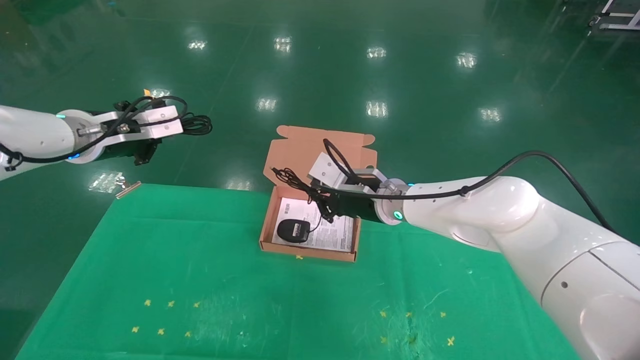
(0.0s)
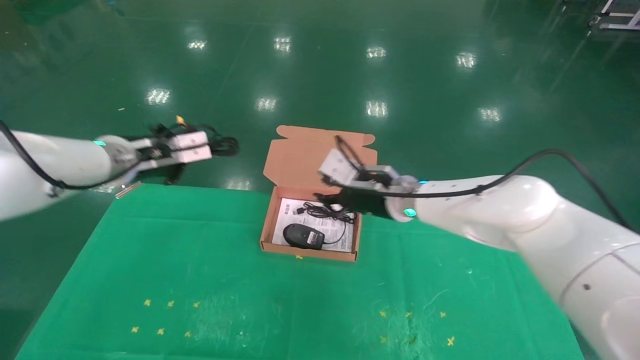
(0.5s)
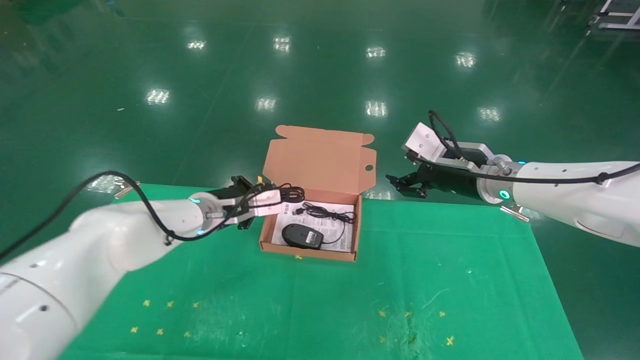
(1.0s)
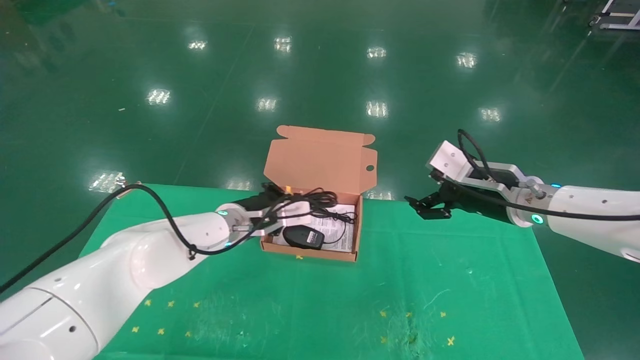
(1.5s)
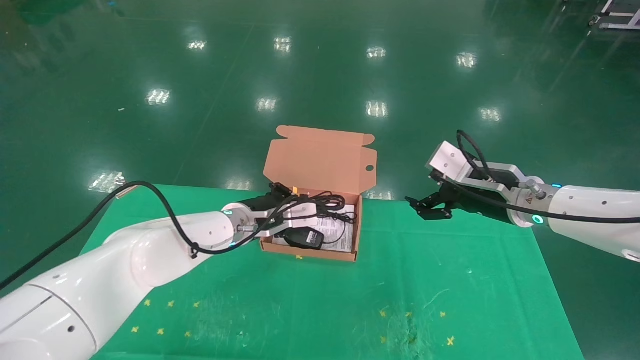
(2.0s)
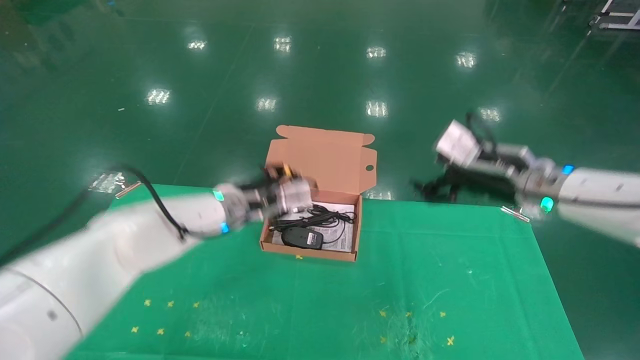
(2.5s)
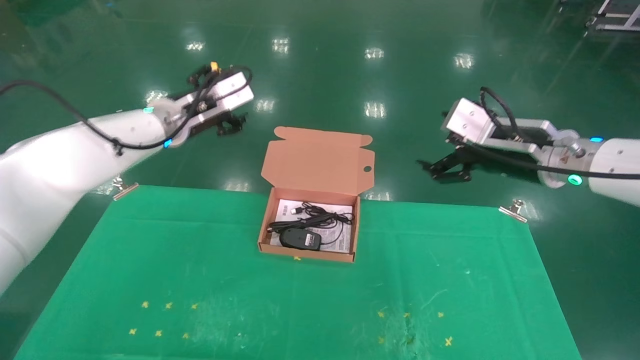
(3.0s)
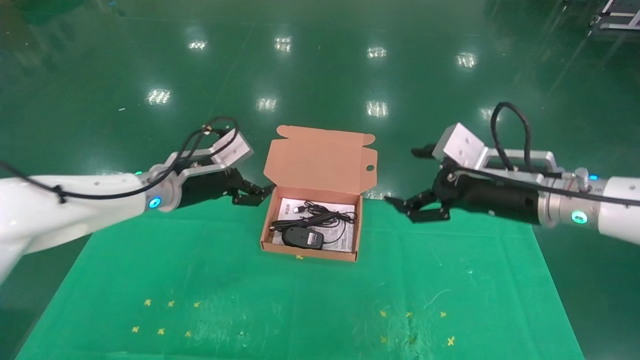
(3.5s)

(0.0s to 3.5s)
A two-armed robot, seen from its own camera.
Task of the whole recording: grasp data cable left put into box grasp mouse right put into box.
Step, 0.0s - 2.0s: Place the mouse and power cord into the box.
0.0s - 2.0s: The left gripper goes approximately 25 cm to the right and downward. The right gripper travels to the right by about 20 cm, and opens.
2.0s - 3.5s: The right gripper is displaced backward by approximately 5 cm. Meanwhile the left gripper moves to the left and upward, some 10 cm, and opens up.

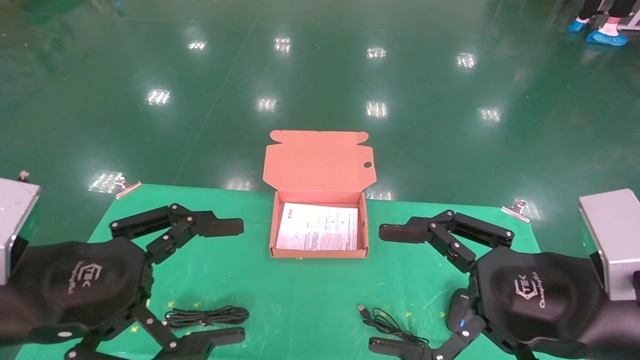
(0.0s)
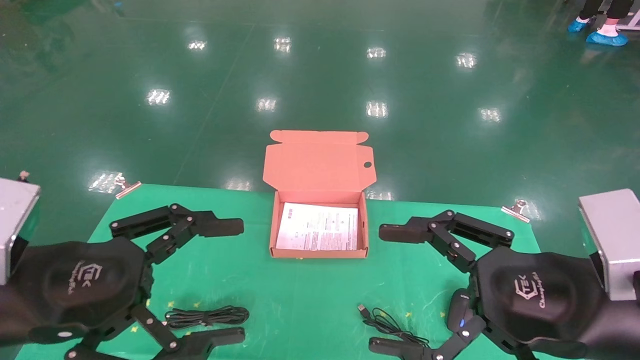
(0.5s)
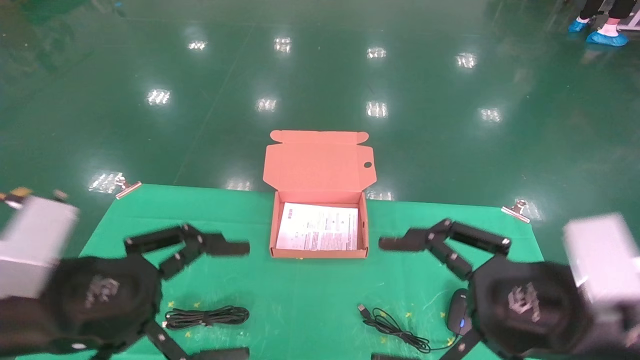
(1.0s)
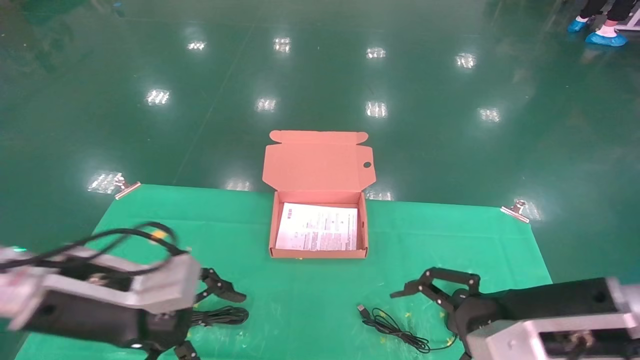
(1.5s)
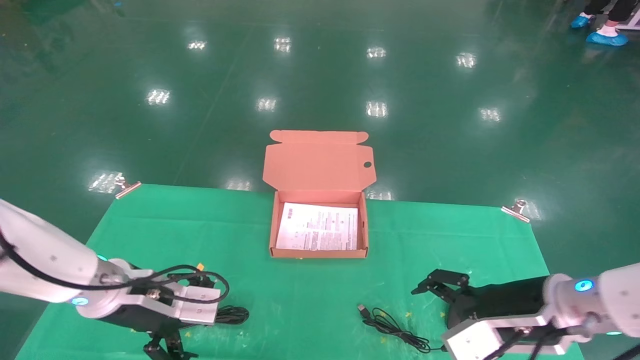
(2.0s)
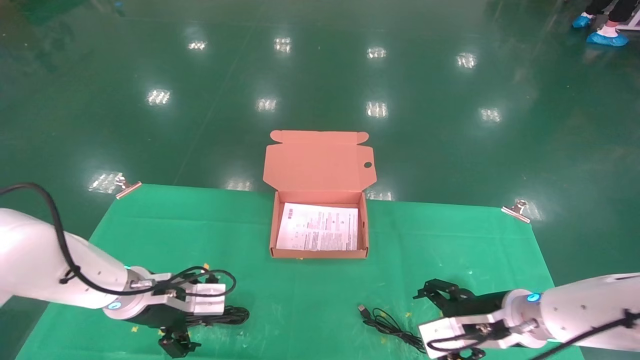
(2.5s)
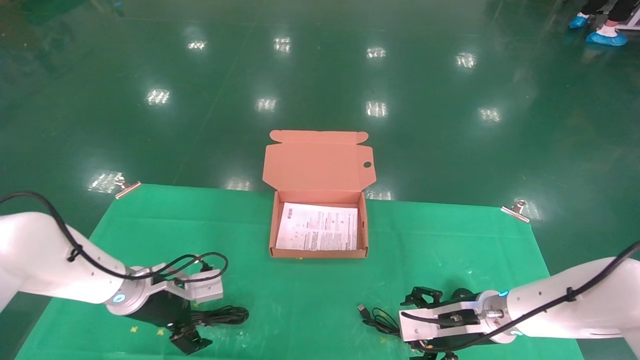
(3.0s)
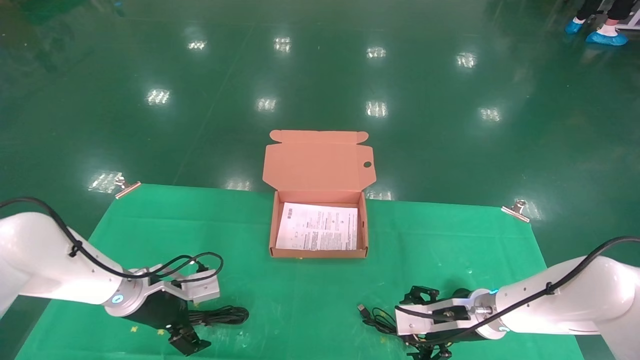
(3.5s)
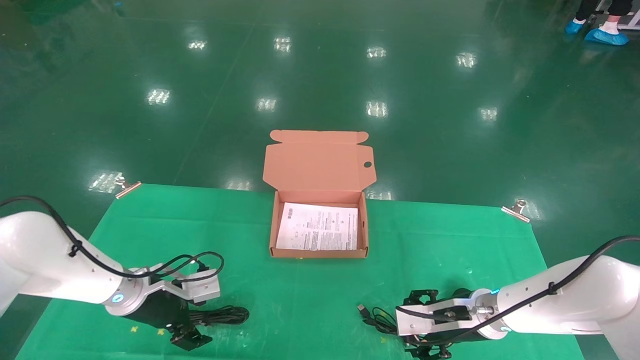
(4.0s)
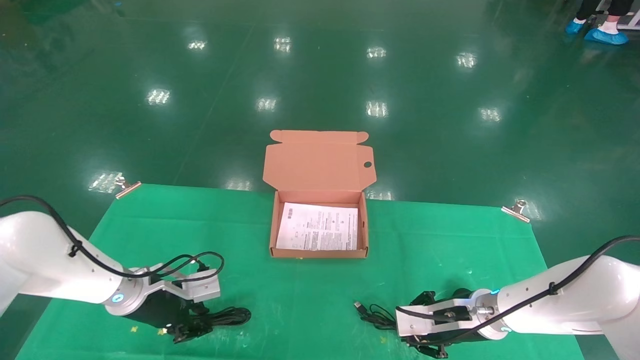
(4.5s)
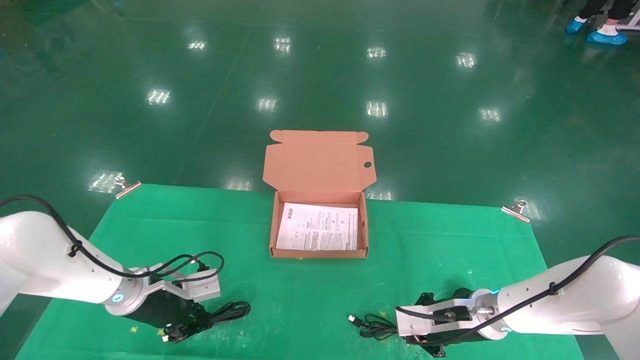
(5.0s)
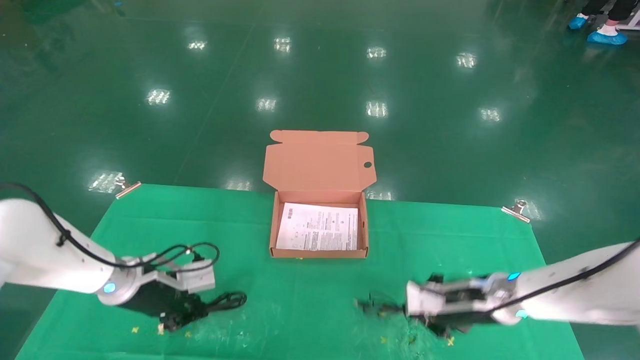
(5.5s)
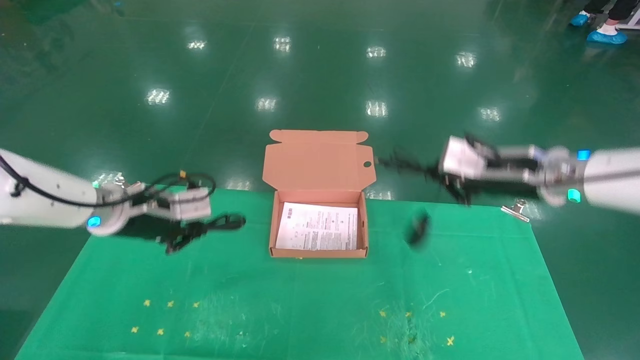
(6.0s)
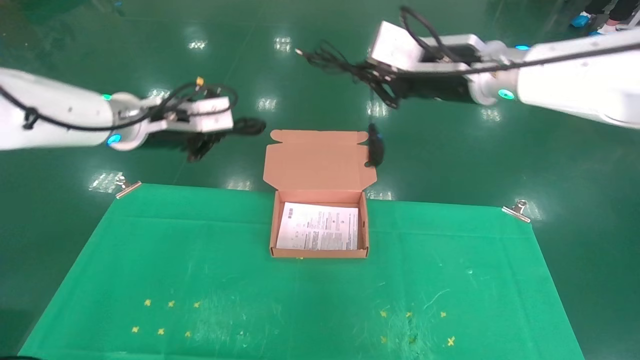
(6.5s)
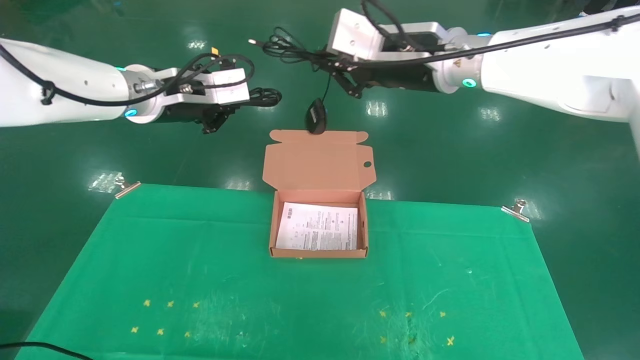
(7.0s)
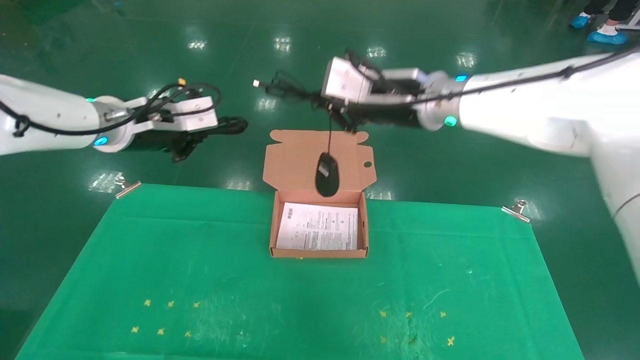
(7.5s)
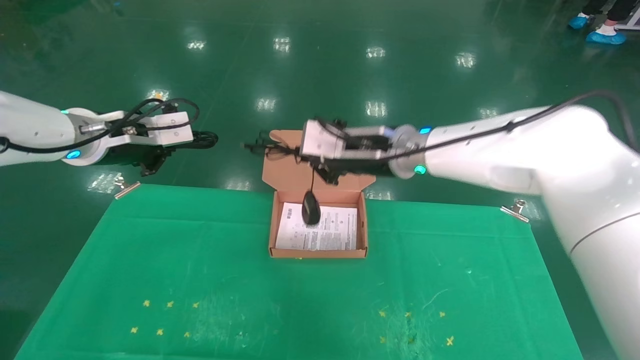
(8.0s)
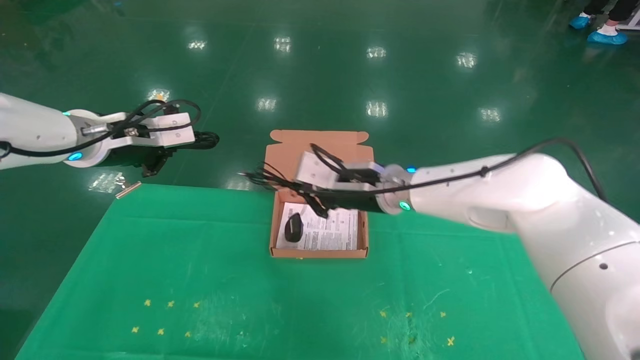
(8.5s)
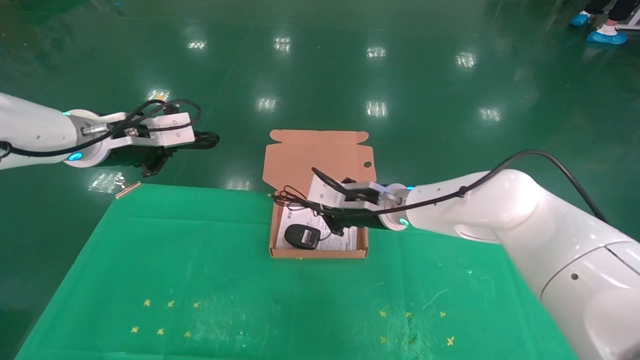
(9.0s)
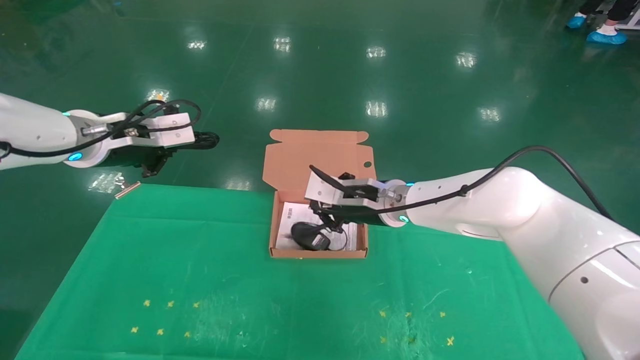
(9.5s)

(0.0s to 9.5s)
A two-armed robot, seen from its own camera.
Task of the whole recording: grasp data cable left put into box grasp mouse right put into box.
Step, 1.5s - 5.5s: Grab and pick up both the mouse and power cord from the accessory packaging area at the same time.
0.0s - 2.0s: The grippers both shift forward and downward by roughly 15 cm.
2.0s - 4.0s: The grippers both shift forward and downward by some 15 cm.
4.0s - 5.5s: The right gripper travels upward by about 5 cm, and closes its fingers. Meanwhile the left gripper closes.
5.5s - 7.5s: The left gripper travels upward by roughly 20 cm; the right gripper shifts some 30 cm upward and to the left.
7.5s - 9.5s: The right gripper shifts about 15 cm downward.

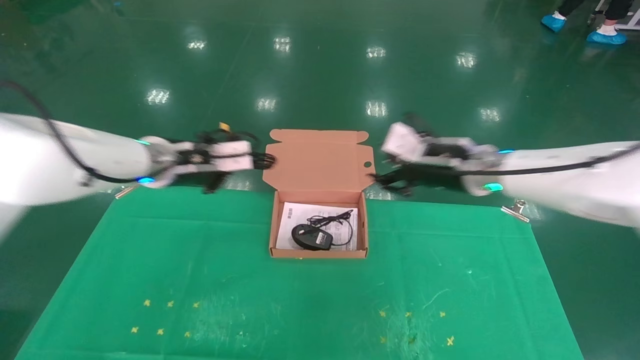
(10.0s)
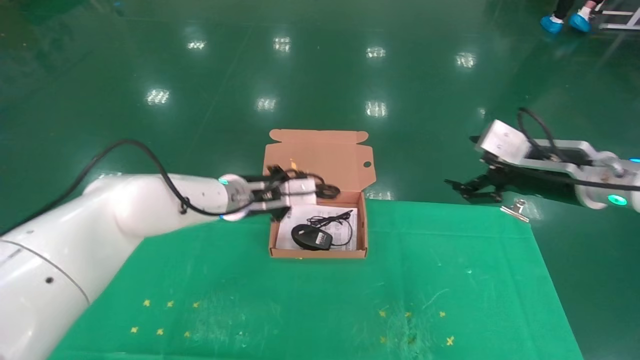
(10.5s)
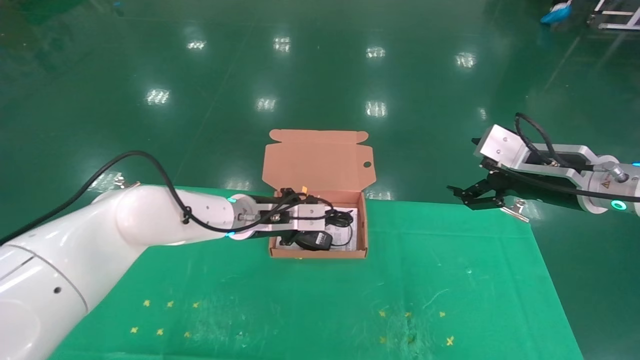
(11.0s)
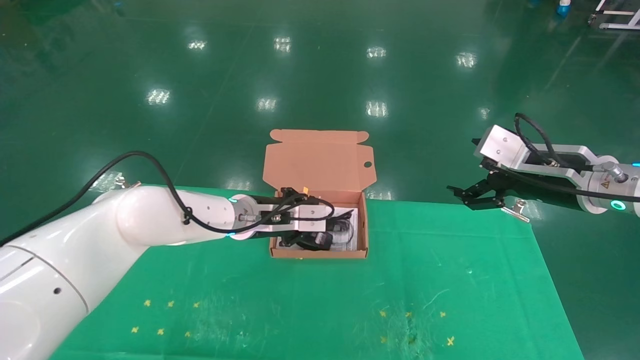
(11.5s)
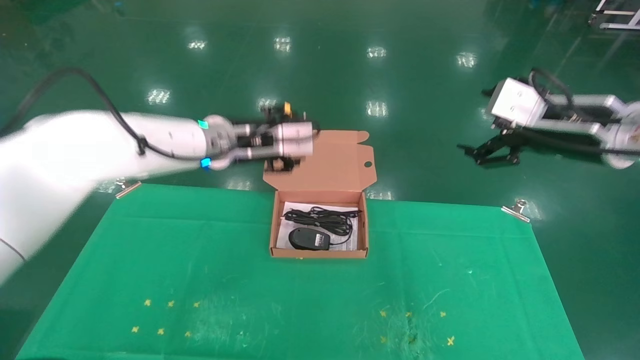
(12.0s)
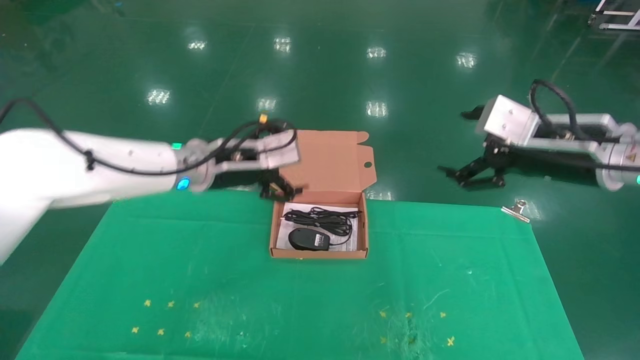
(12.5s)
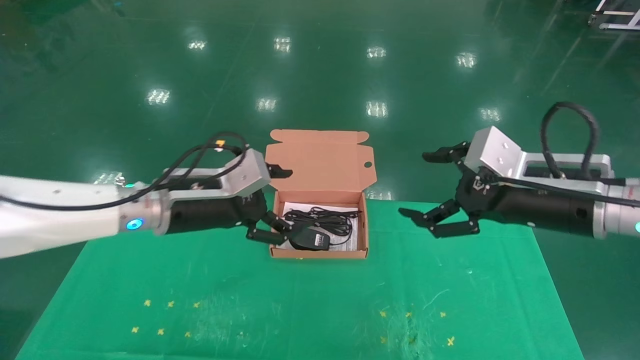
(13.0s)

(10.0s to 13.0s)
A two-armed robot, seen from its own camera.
Task of the whole recording: grasp data cable left put into box grasp mouse right put into box.
Step, 10.0s - 12.0s: Place the mouse and power cord into the box.
10.0s - 11.5s: The right gripper is displaced to the right and backward by roughly 10 cm, and opens; the left gripper goes roughly 10 cm downward and to the right.
11.5s - 13.0s: The right gripper goes some 10 cm backward and to the left. The left gripper moves backward, to the left and upward, some 15 cm, and opens.

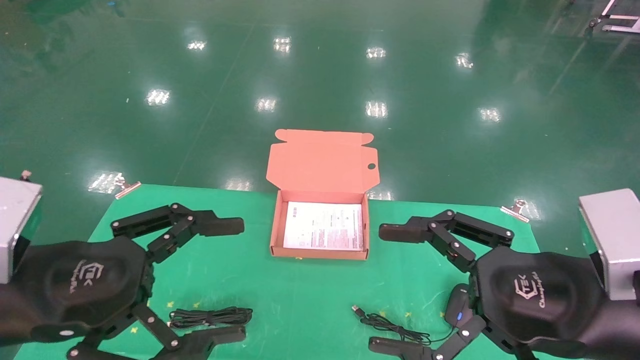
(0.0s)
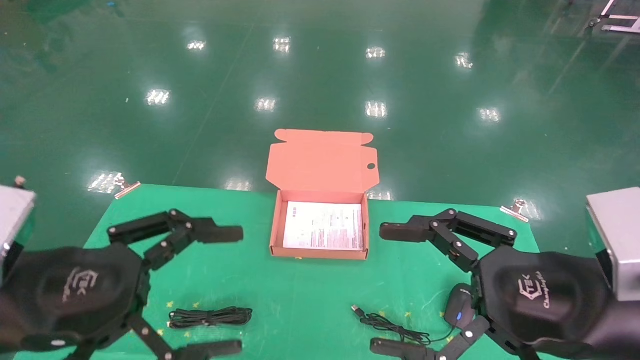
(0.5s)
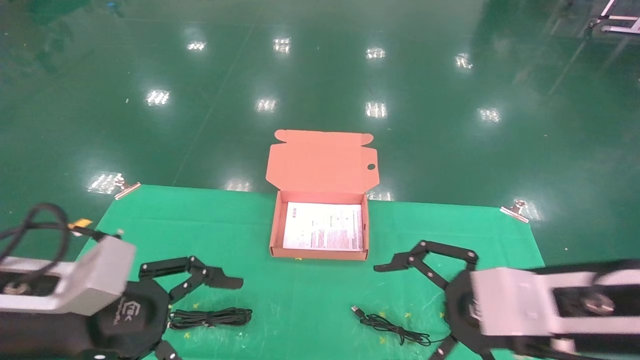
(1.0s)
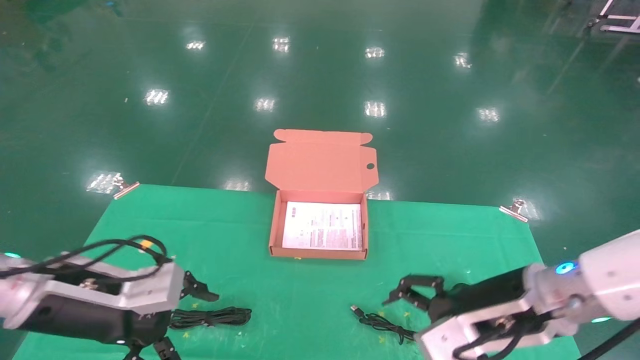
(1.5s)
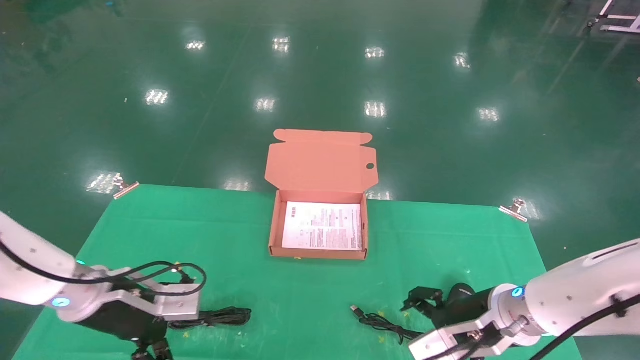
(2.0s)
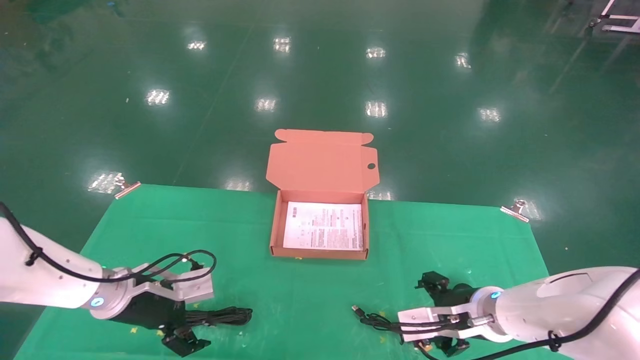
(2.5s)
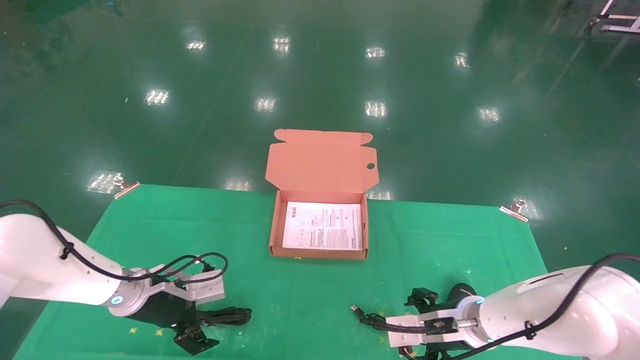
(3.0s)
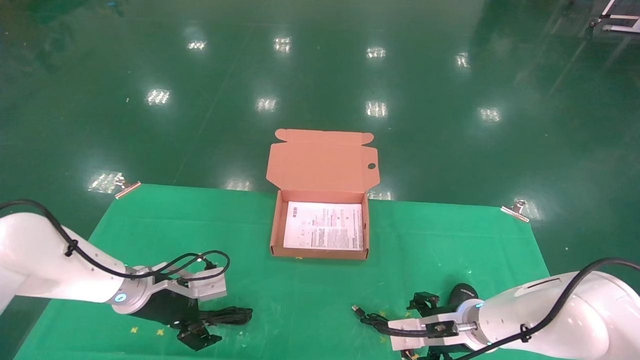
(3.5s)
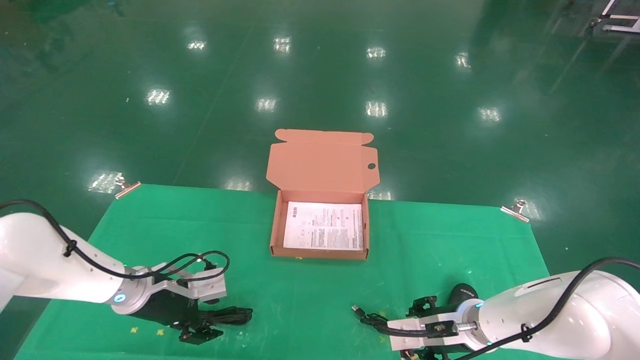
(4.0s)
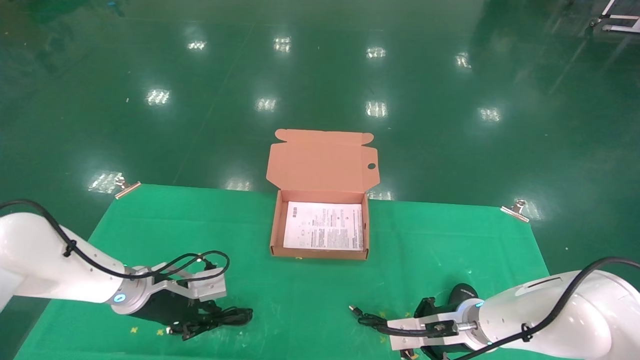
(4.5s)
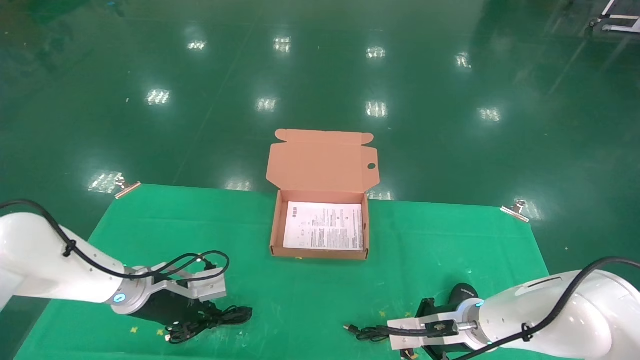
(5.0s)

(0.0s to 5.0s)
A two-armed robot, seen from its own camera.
Task of the whole recording: grasp data cable left put into box grasp mouse right put into box.
0.0s - 2.5s: The grippers both shift forward and downward by roughly 25 cm.
2.5s - 5.0s: The right gripper closes up. The left gripper closes up.
